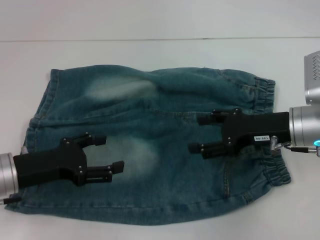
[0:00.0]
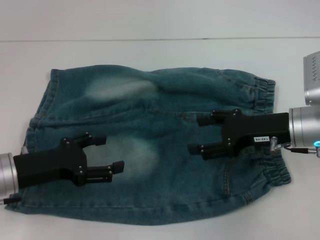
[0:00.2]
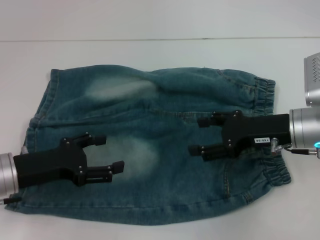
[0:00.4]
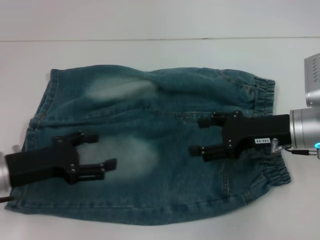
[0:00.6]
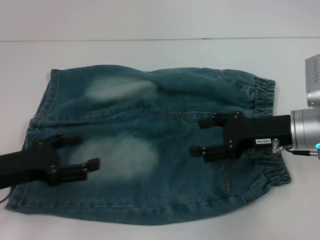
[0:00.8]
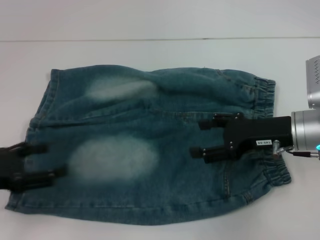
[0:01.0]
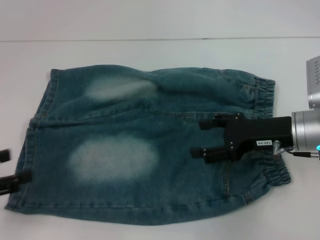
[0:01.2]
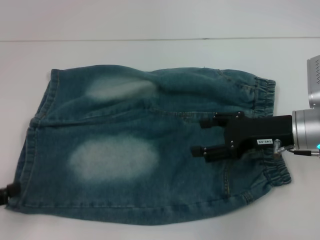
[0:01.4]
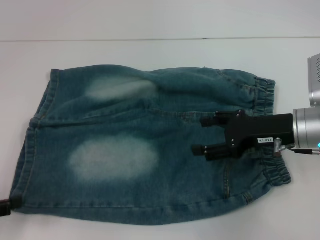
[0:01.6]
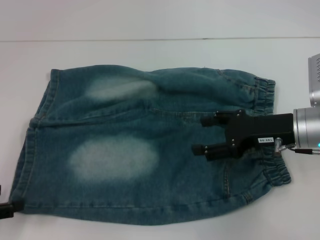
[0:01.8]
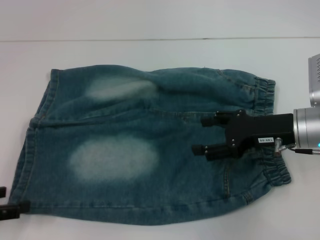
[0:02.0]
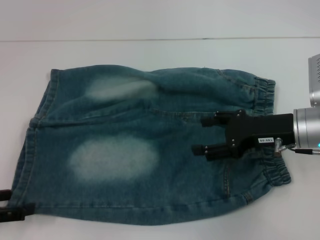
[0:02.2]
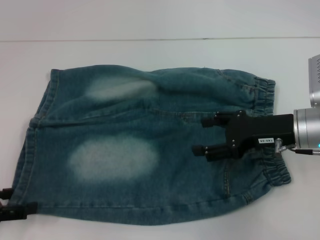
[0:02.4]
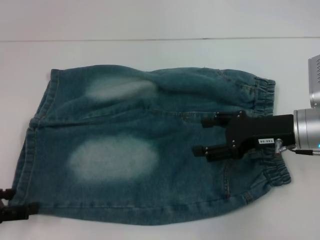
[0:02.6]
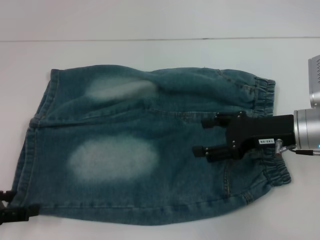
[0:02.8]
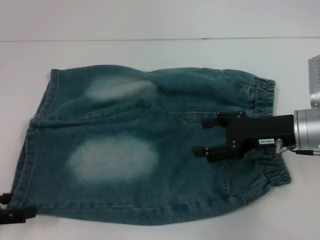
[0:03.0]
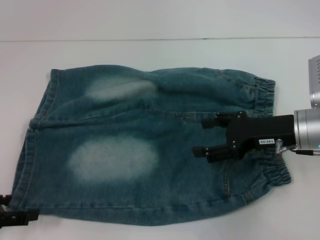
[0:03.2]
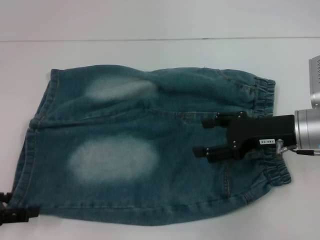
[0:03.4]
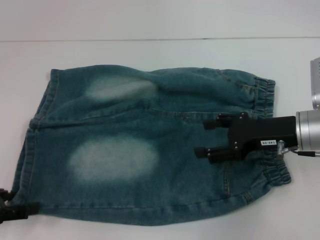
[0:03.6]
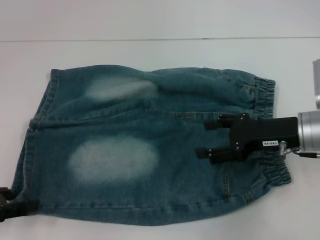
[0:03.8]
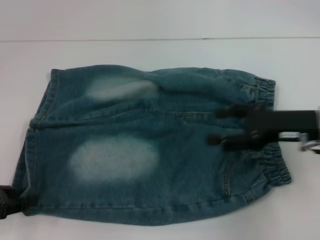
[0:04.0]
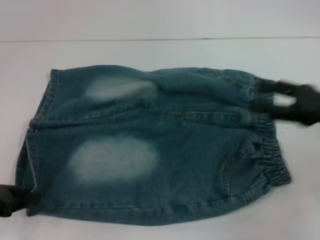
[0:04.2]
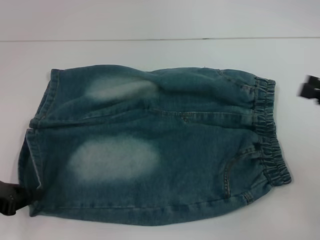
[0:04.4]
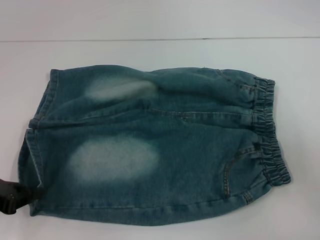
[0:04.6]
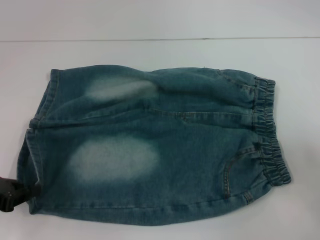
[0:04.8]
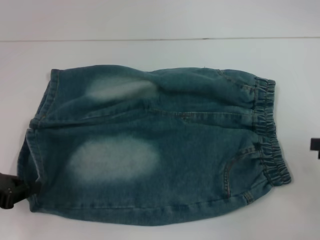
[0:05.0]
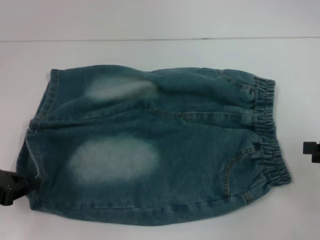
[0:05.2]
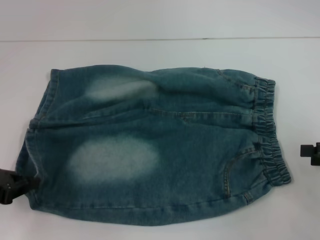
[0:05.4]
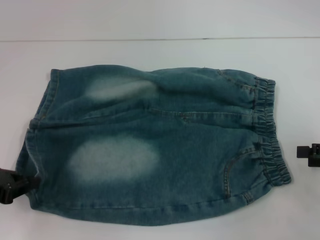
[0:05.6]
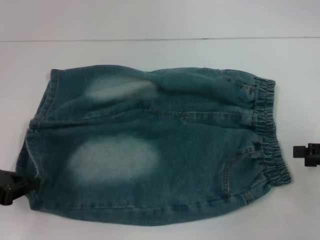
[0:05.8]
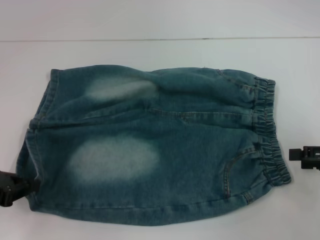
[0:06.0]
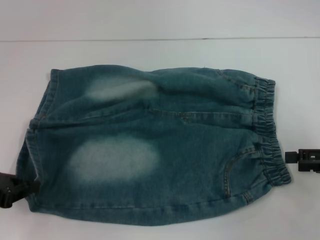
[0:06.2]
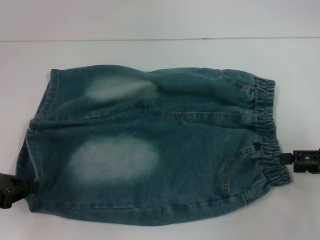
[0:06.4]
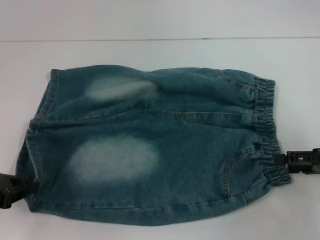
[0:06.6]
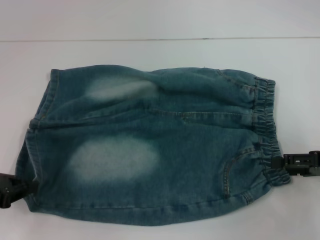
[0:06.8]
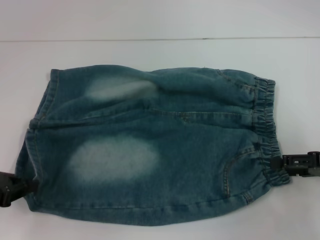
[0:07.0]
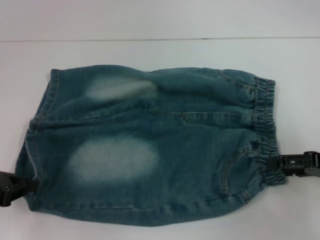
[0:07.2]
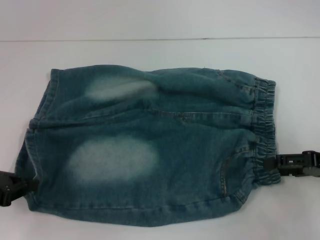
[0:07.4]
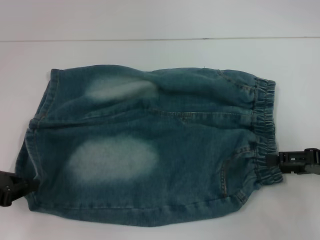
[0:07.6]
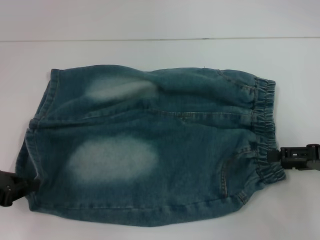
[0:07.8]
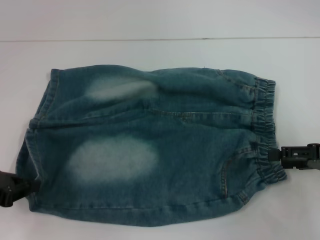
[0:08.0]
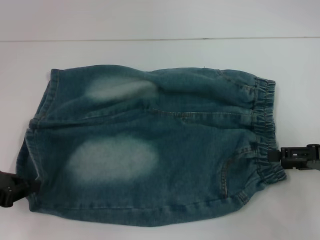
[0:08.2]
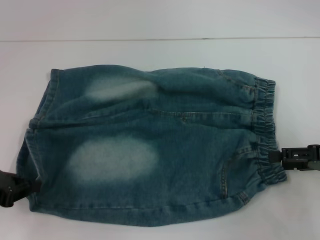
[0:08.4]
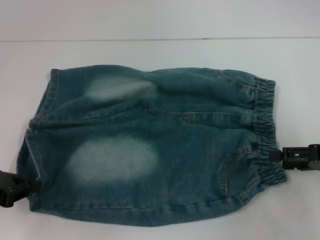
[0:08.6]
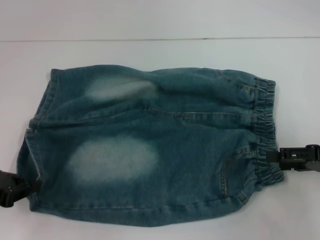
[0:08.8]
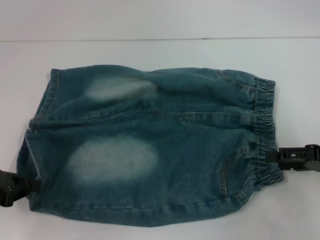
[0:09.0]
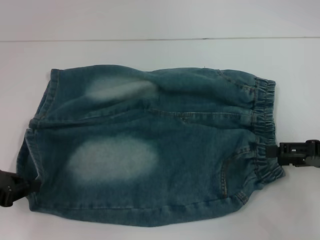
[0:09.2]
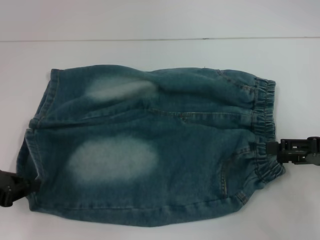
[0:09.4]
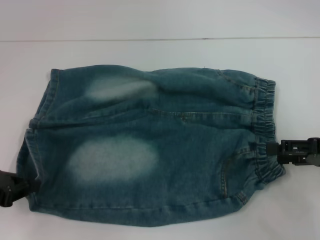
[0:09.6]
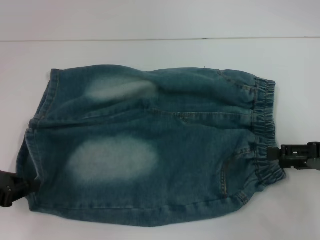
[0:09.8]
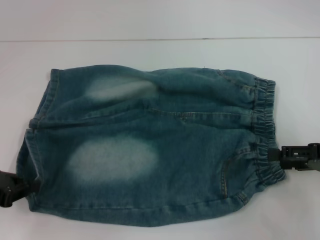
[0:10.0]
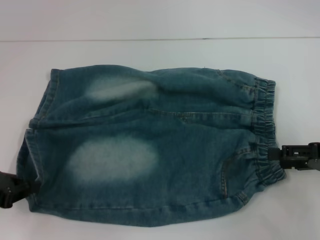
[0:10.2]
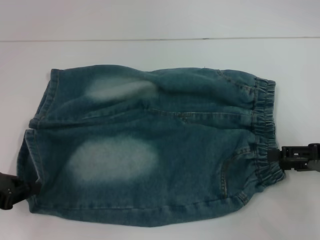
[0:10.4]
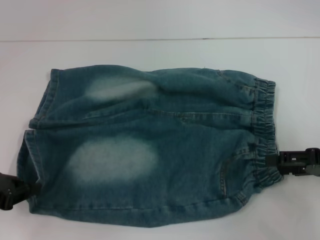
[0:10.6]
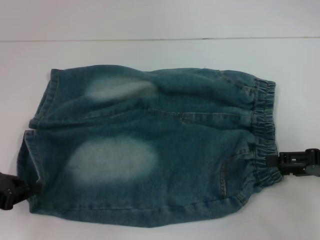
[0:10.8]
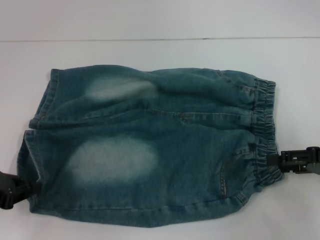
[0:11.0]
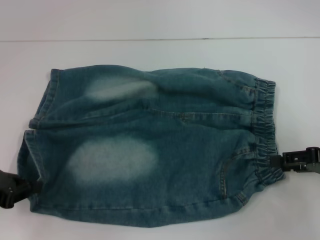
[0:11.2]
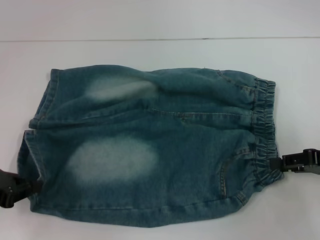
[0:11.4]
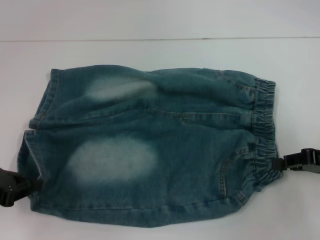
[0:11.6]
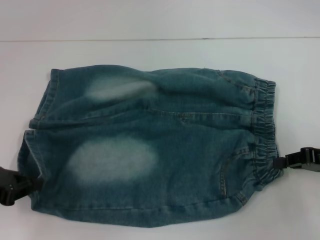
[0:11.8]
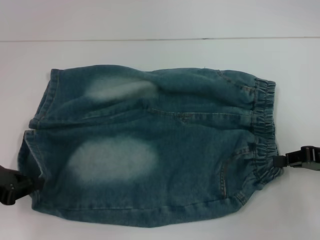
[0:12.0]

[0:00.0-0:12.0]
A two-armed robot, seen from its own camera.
Step, 0:00.0 to 0:04.4: Grab the lower left pant leg with your left hand.
Step, 0:04.6 to 0:12.0: Hold the lower right waistband with your right hand.
0:00.0 to 0:01.6: The left gripper is displaced to the left and backward by some 15 cm.
0:01.6 to 0:03.0: The grippers move only a little.
0:03.0 to 0:04.4: The left gripper closes its fingers. Meanwhile the right gripper goes some 15 cm to the right and backward.
0:06.0 to 0:07.6: The grippers move only a little.
0:07.6 to 0:09.0: Both grippers stay about where they are.
0:09.0 to 0:10.4: Both grippers stay about where they are.
0:10.4 to 0:12.0: The right gripper closes its fingers.

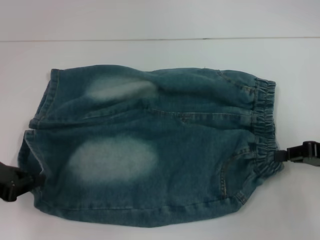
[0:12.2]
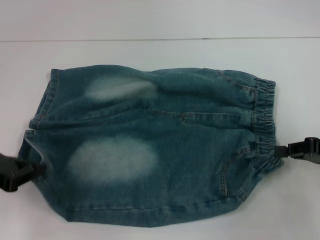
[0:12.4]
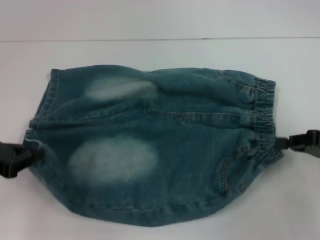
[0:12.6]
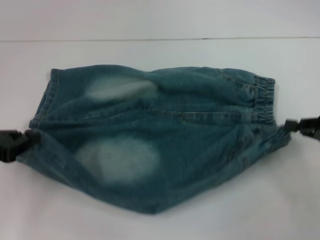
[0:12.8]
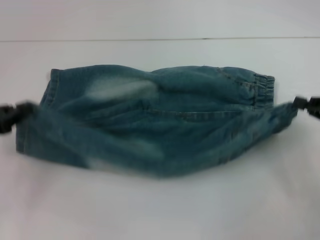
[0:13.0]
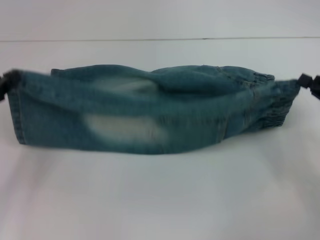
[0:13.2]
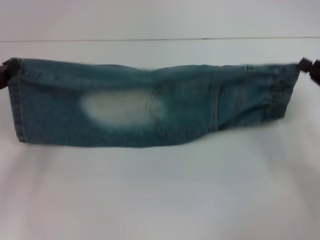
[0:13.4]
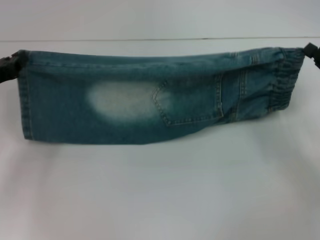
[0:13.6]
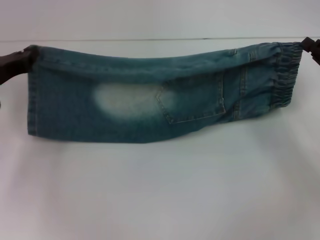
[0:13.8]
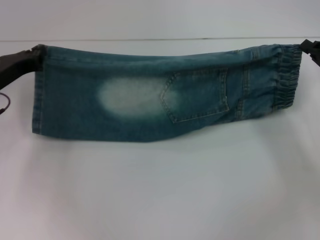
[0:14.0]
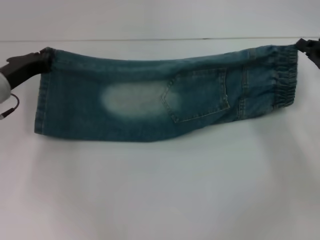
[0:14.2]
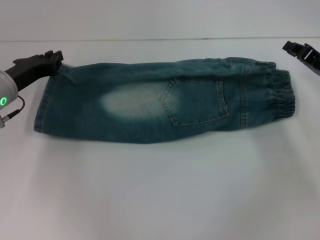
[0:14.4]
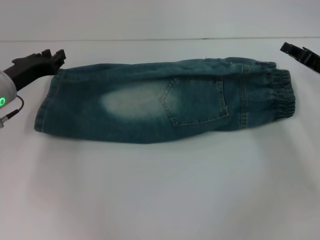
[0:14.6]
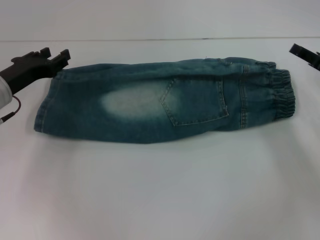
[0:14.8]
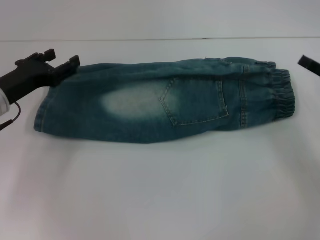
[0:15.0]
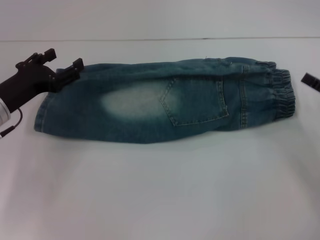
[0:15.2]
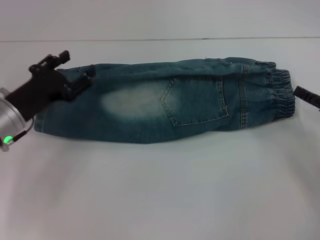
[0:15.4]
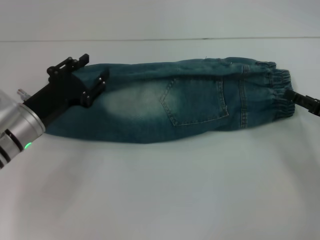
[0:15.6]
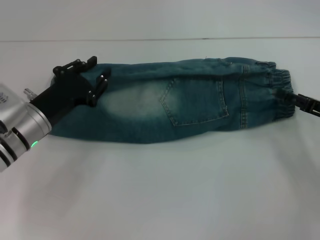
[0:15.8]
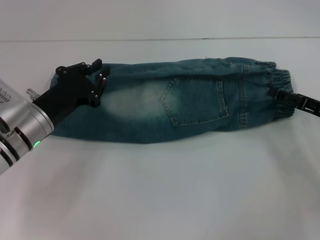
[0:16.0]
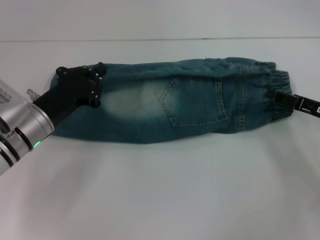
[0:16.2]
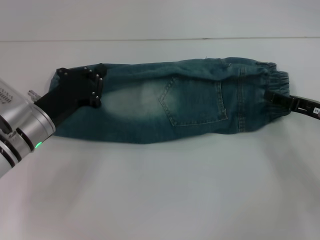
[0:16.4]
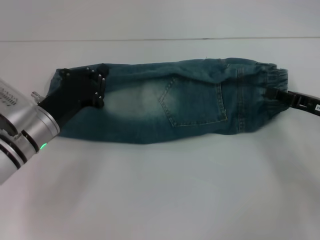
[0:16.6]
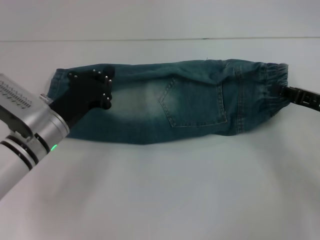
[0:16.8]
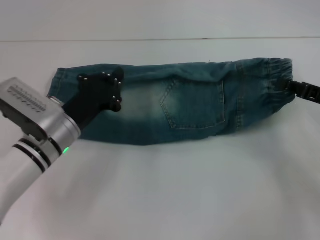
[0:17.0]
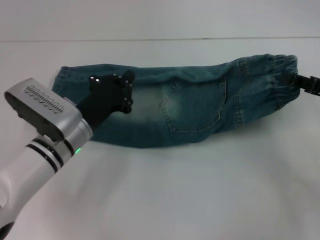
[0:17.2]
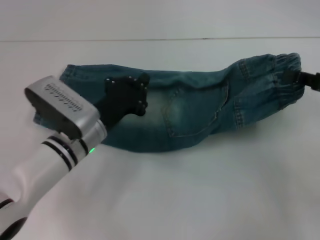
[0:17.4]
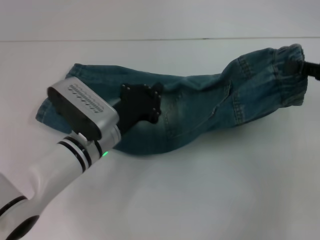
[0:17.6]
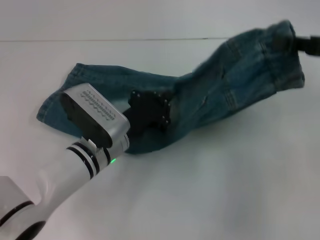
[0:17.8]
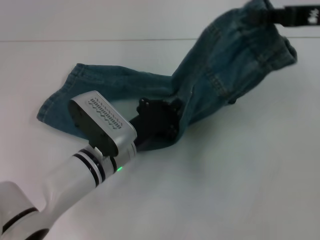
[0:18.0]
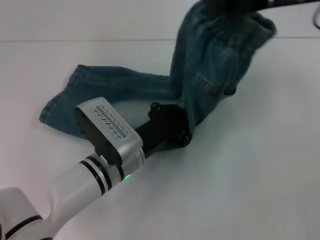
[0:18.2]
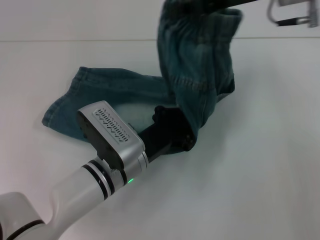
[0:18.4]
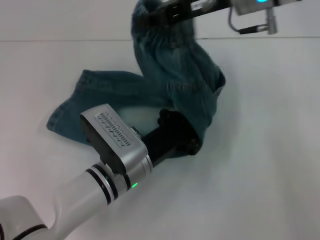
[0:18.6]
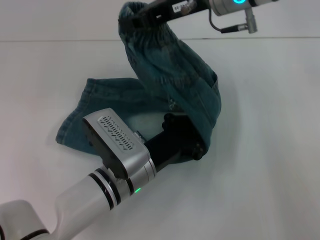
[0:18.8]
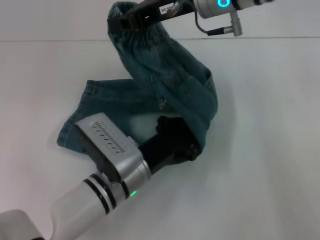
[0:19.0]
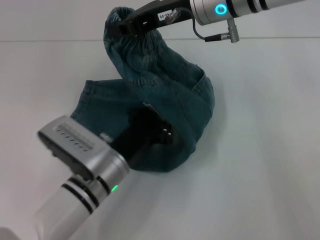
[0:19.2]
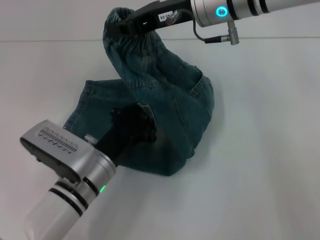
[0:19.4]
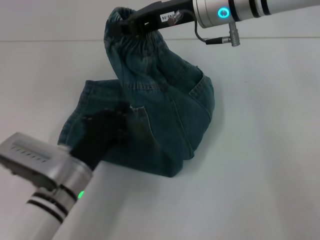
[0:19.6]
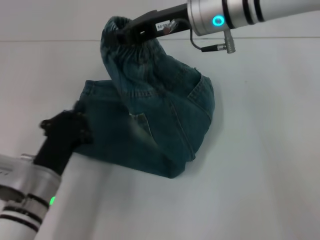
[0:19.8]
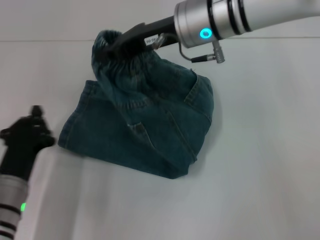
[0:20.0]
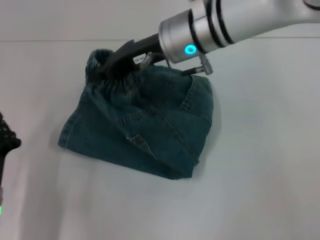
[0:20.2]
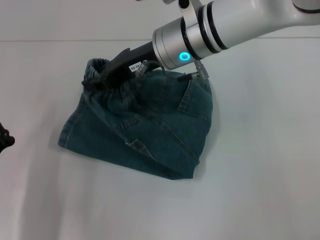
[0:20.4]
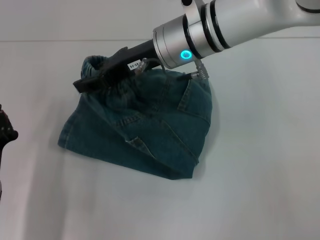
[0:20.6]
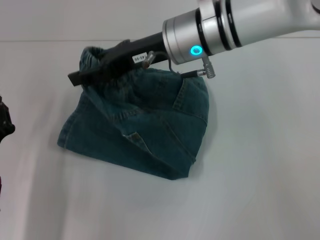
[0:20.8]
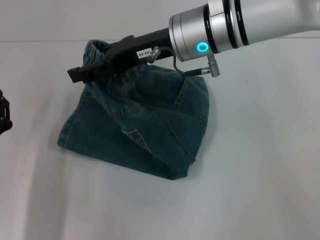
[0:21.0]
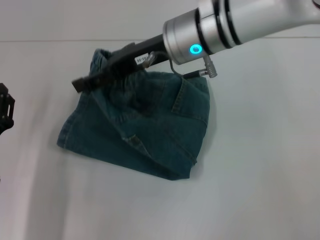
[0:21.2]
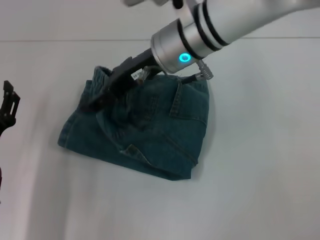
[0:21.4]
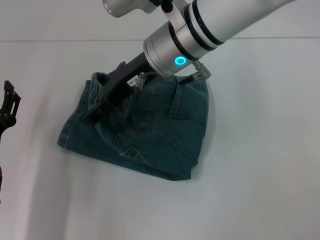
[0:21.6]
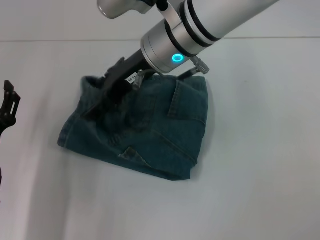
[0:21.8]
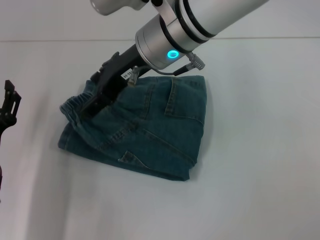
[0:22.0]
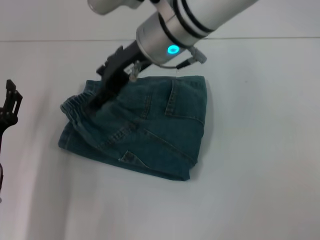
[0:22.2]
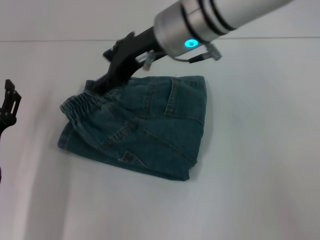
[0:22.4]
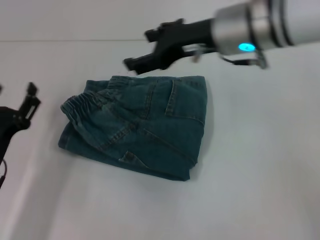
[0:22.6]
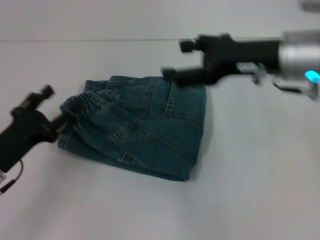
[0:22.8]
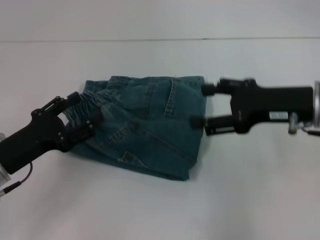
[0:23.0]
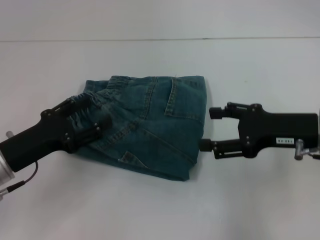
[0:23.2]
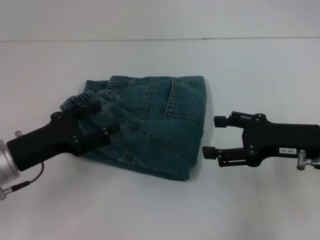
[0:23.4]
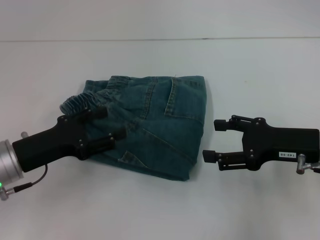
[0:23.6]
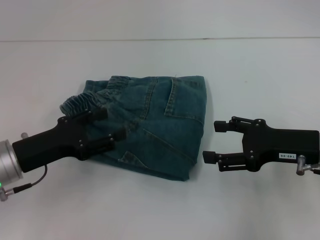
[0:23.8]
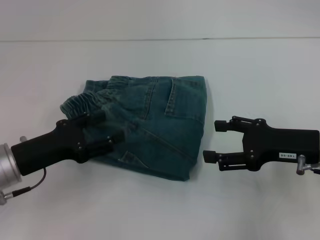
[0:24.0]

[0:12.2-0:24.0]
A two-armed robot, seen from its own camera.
Step, 0:12.2 to 0:14.4: Fold upward with your right hand.
Step, 0:14.6 to 0:16.2: Grab the waistband with your right hand.
Step, 0:16.4 to 0:18.8: Press the middle of the pants with your left hand.
Step, 0:19.0 to 0:22.0: Fold to the left with your right hand.
0:12.2 to 0:13.6: The left gripper moves forward, about 10 cm.
0:13.6 to 0:15.2: The left gripper ends up roughly 5 cm from where it was, and opens up; the right gripper opens.
0:15.2 to 0:16.6: The left gripper shifts approximately 5 cm to the right, and closes up; the right gripper shifts by some 5 cm.
0:16.6 to 0:18.2: The right gripper travels upward and to the left by about 20 cm, and closes; the left gripper shifts approximately 10 cm to the right.
0:18.2 to 0:19.6: The right gripper is displaced to the left by roughly 15 cm. The left gripper travels to the left by some 5 cm.
0:19.6 to 0:21.0: The left gripper is displaced to the left by some 10 cm. The right gripper opens its fingers.
0:21.0 to 0:22.6: The right gripper is displaced to the right by some 5 cm, and opens its fingers; the left gripper opens up.
0:22.6 to 0:24.0: The right gripper shifts roughly 20 cm to the right, downward and backward. The left gripper changes place by approximately 5 cm.
